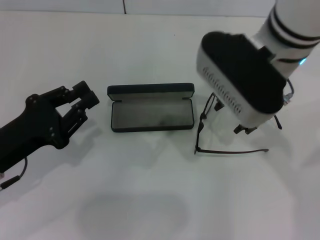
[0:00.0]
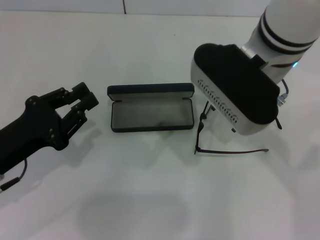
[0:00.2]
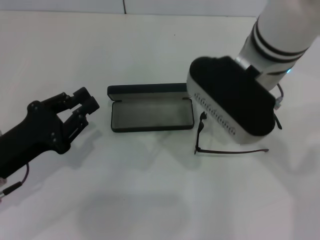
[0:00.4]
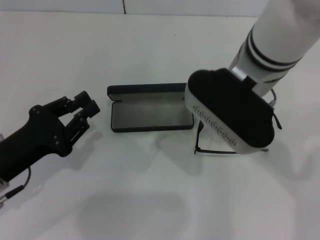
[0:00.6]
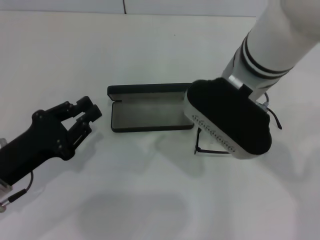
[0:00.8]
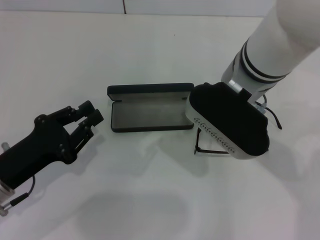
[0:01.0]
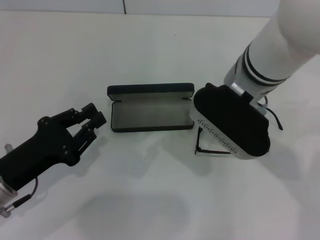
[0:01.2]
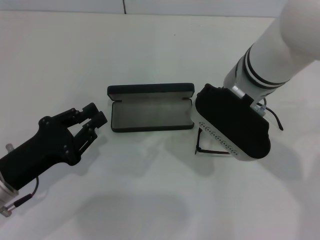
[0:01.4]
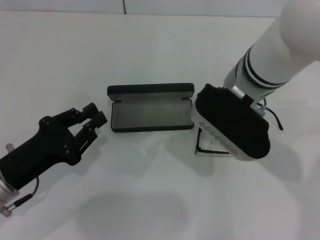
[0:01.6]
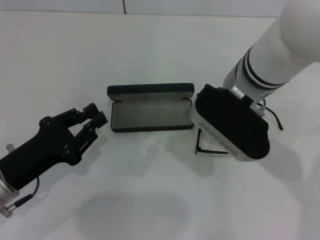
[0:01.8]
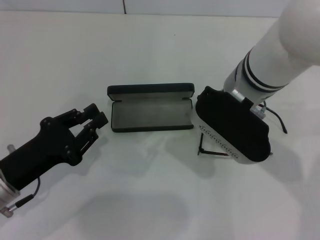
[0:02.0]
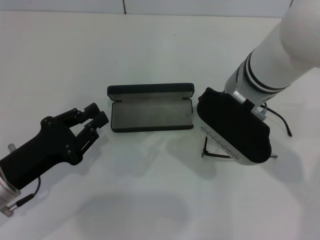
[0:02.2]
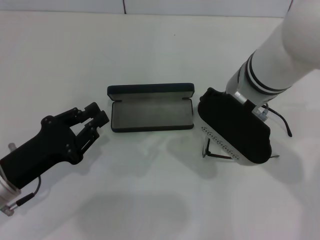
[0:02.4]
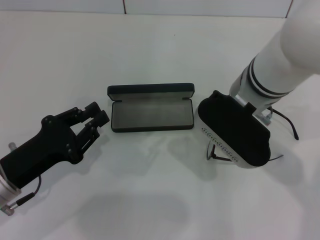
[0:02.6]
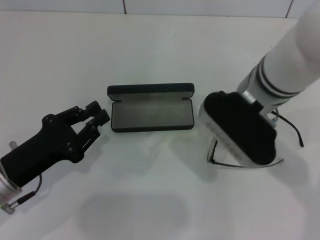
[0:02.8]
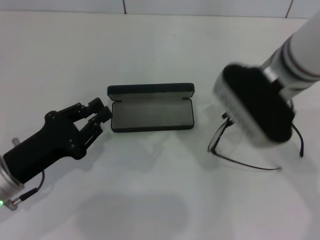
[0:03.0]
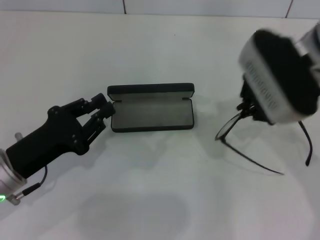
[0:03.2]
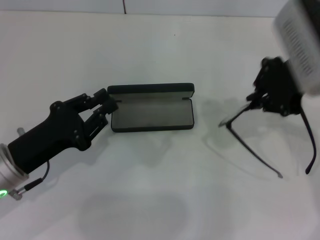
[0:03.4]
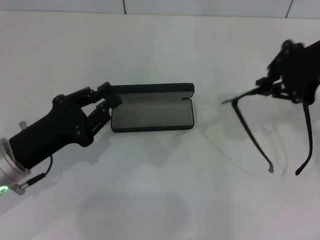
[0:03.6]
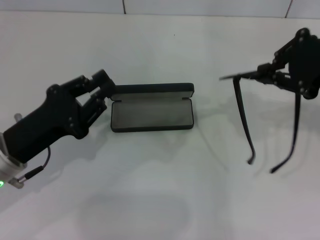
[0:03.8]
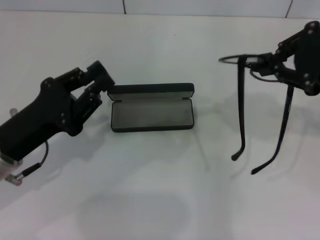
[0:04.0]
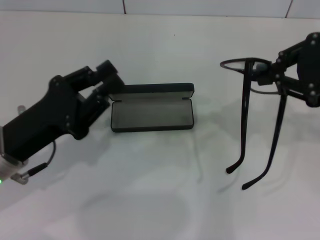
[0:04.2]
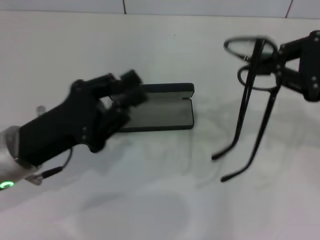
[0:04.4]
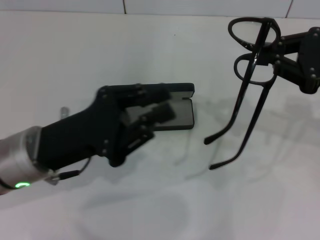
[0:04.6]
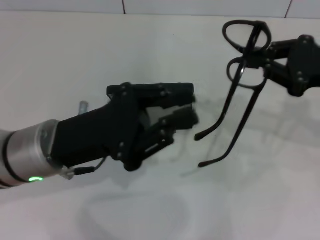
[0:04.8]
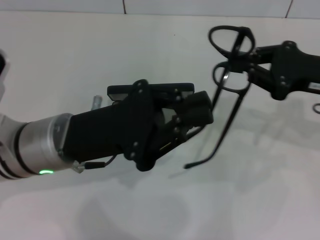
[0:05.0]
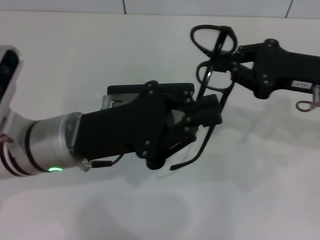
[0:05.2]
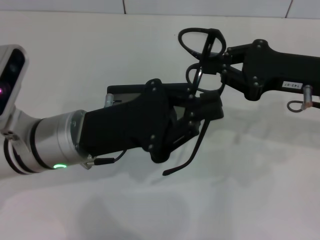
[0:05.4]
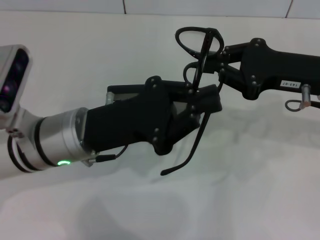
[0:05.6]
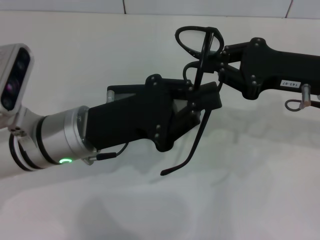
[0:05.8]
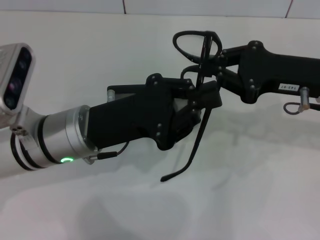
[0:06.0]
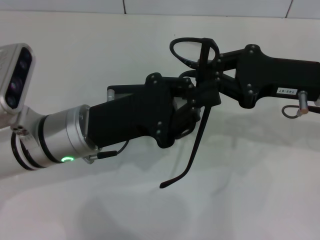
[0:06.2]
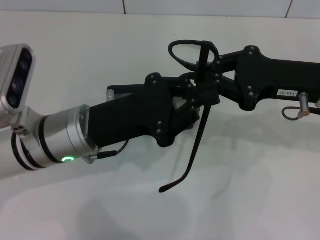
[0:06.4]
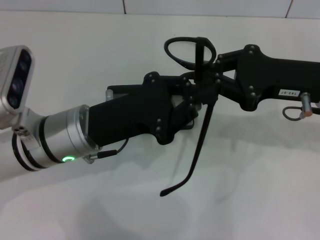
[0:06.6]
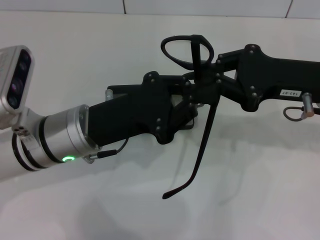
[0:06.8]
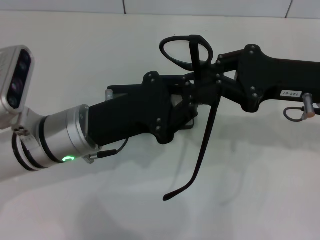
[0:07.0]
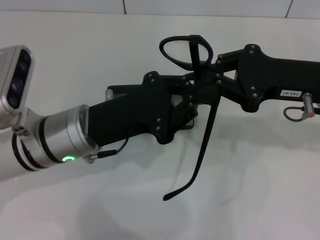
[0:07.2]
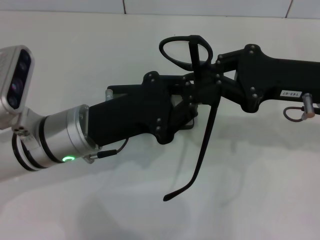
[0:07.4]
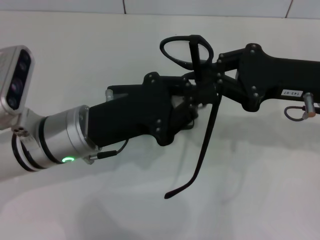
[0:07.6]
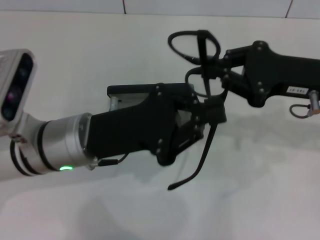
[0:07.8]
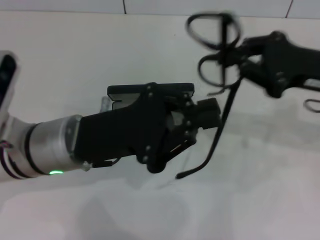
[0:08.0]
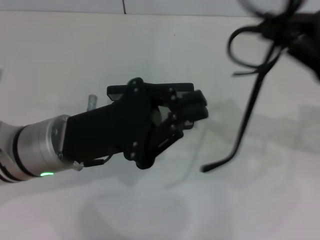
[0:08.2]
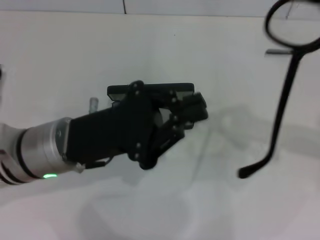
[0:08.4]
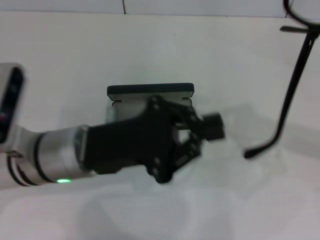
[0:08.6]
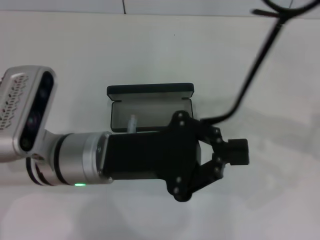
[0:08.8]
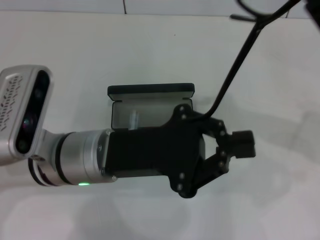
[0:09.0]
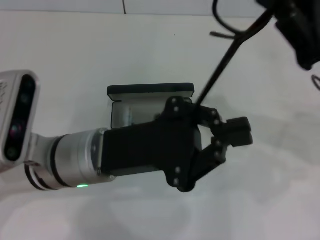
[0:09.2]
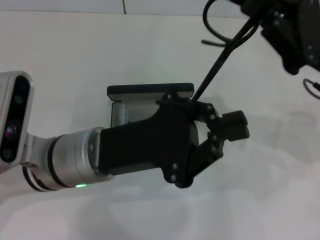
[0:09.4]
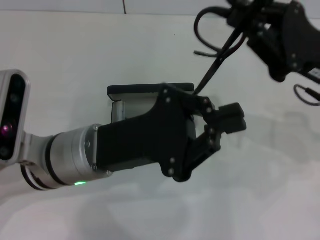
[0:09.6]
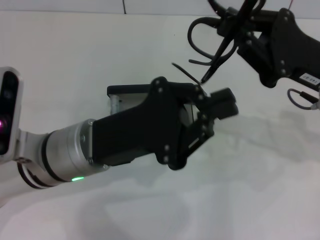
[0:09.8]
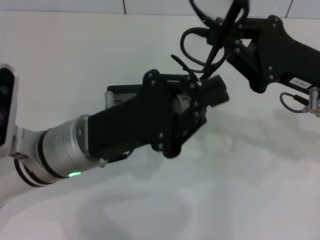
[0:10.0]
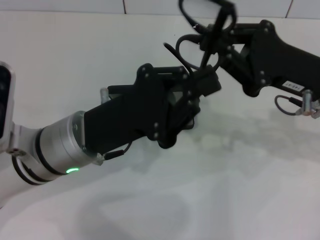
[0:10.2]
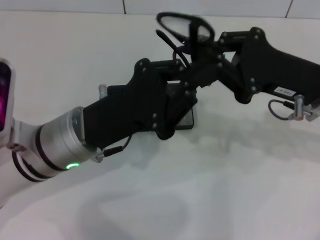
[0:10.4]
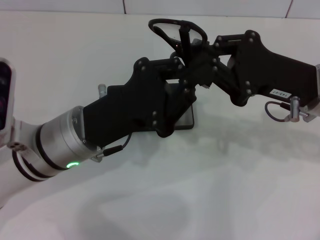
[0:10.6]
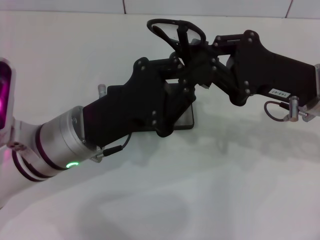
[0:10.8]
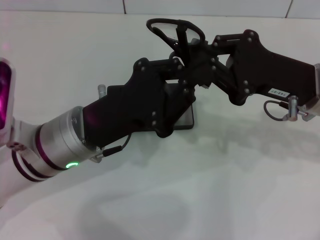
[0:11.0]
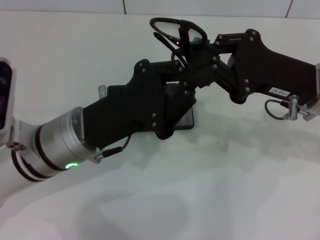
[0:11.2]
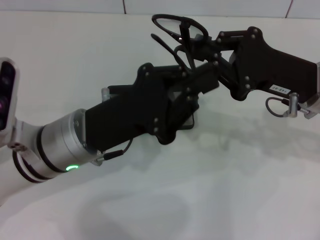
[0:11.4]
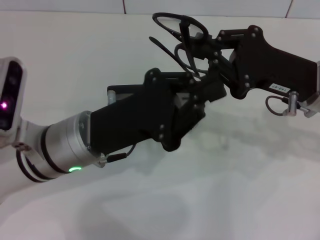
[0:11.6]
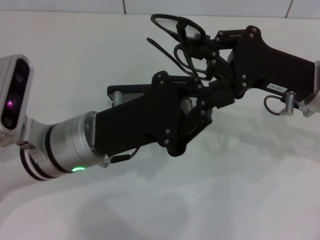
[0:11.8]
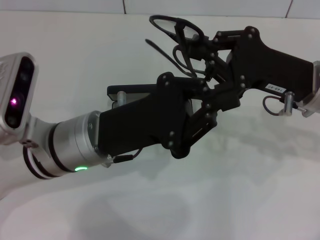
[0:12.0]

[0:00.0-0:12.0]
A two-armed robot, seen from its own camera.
Step, 0:00.0 to 0:02.6: Grab the eyeglass frame with your right hand.
0:00.0 to 0:01.6: The right gripper travels downward by approximately 5 cm.
0:01.6 to 0:03.0: The right gripper closes its fingers.
0:03.0 to 0:04.4: The right gripper moves to the right, about 15 cm; the left gripper ends up roughly 5 cm from where it was.
0:04.4 to 0:06.0: The left gripper goes some 5 cm to the right. Meanwhile the right gripper goes approximately 10 cm to the left and downward.
0:06.0 to 0:07.6: The grippers stay close to where they were, moving slightly.
0:09.0 to 0:10.4: The right gripper changes place by some 5 cm.

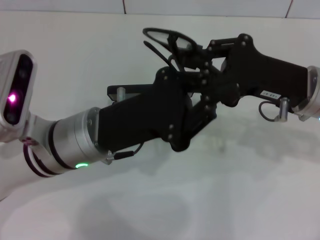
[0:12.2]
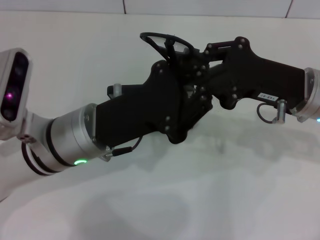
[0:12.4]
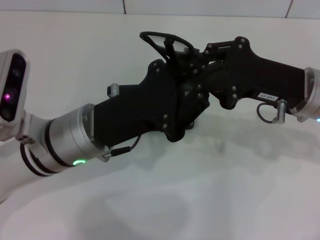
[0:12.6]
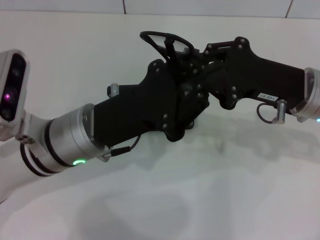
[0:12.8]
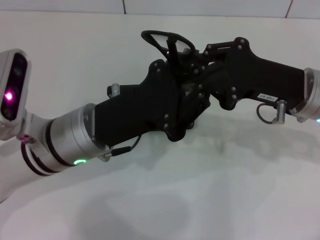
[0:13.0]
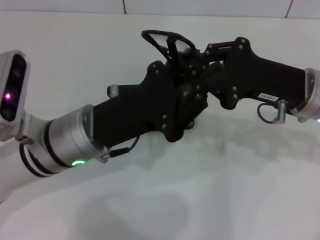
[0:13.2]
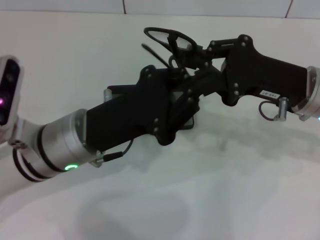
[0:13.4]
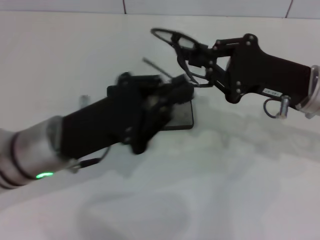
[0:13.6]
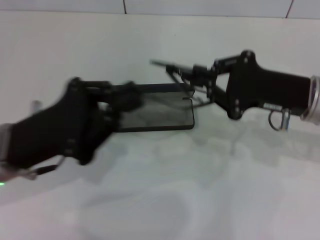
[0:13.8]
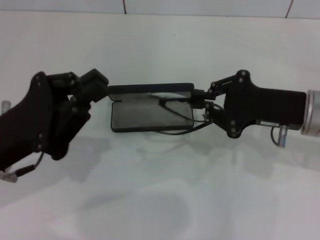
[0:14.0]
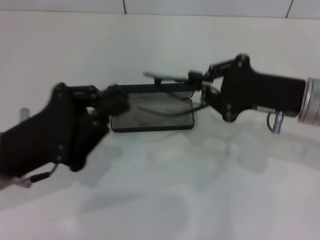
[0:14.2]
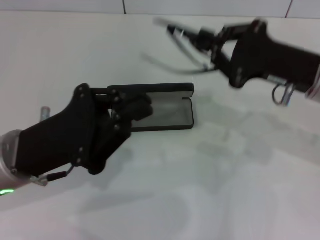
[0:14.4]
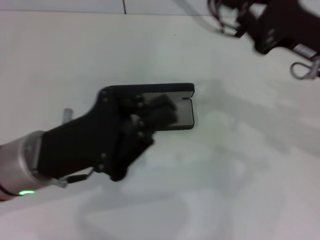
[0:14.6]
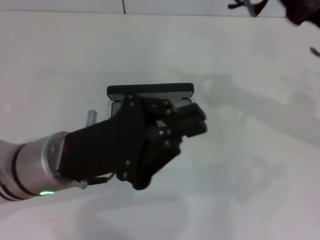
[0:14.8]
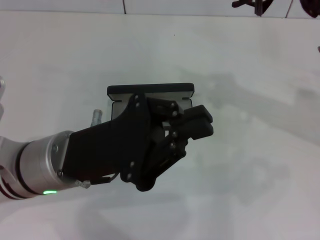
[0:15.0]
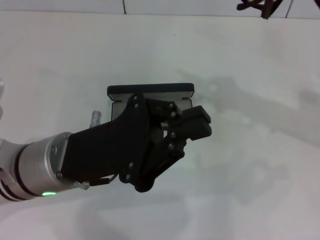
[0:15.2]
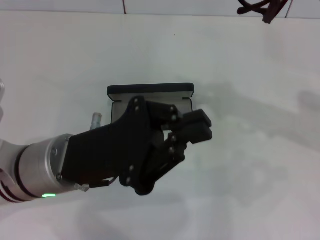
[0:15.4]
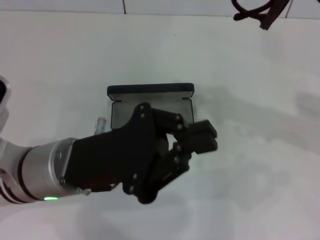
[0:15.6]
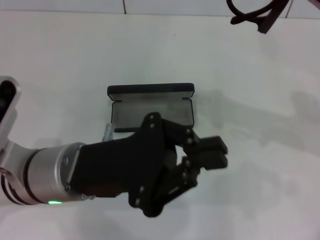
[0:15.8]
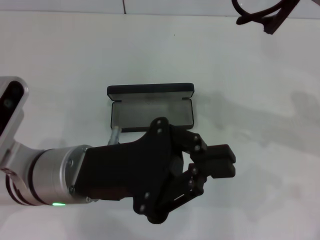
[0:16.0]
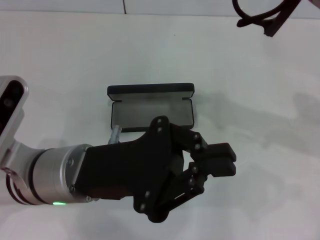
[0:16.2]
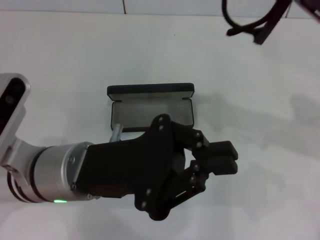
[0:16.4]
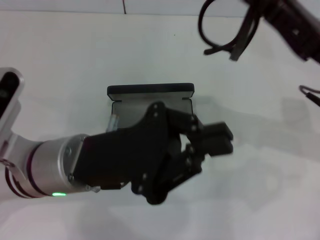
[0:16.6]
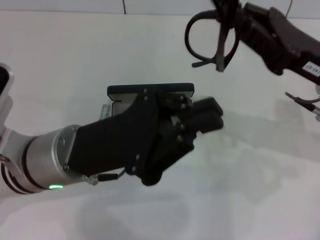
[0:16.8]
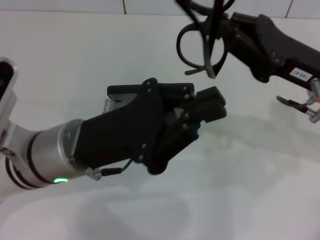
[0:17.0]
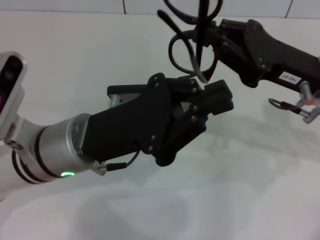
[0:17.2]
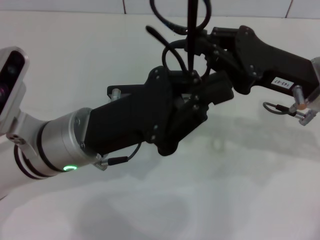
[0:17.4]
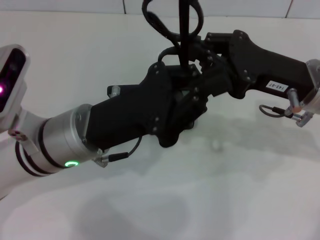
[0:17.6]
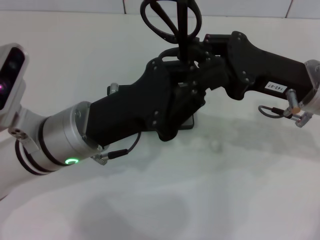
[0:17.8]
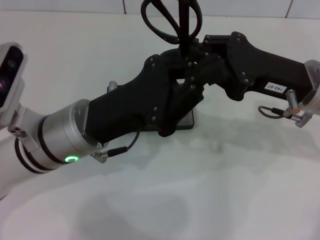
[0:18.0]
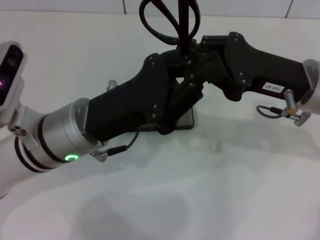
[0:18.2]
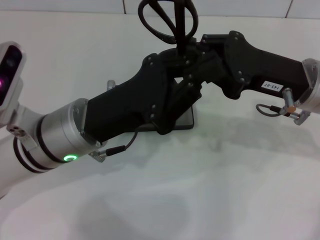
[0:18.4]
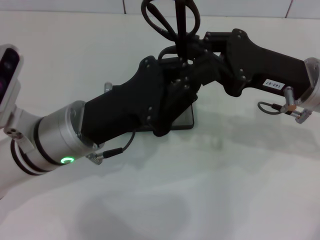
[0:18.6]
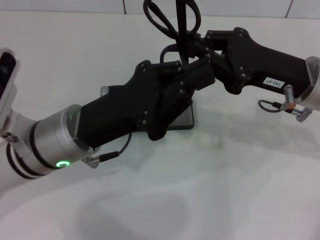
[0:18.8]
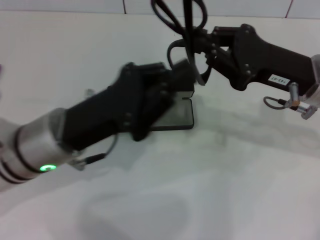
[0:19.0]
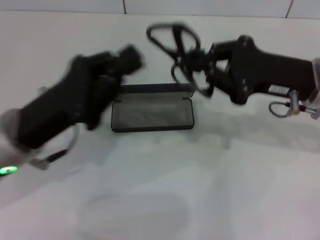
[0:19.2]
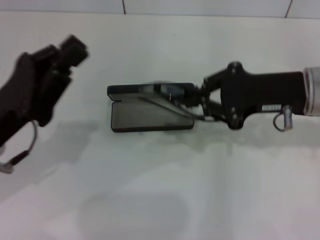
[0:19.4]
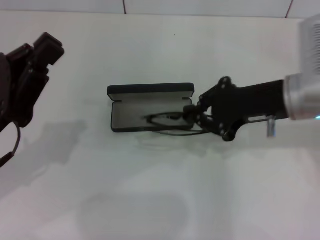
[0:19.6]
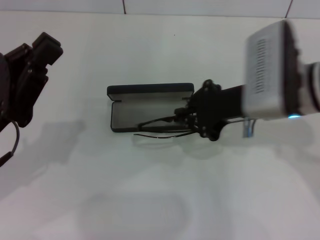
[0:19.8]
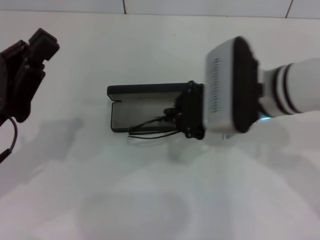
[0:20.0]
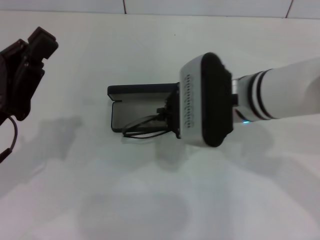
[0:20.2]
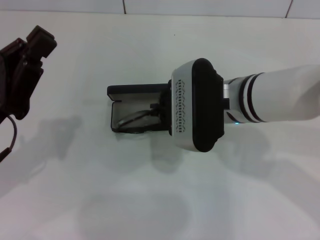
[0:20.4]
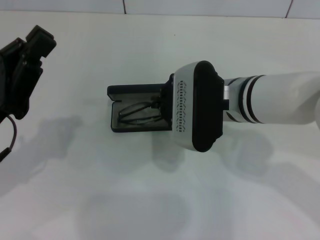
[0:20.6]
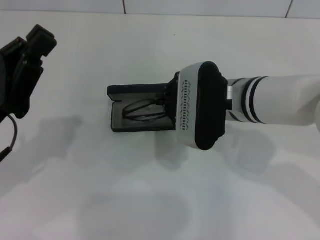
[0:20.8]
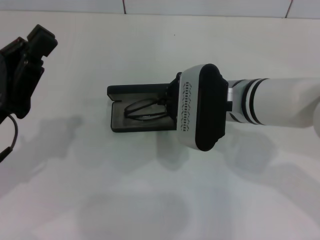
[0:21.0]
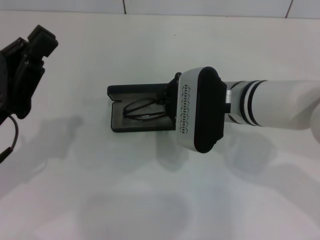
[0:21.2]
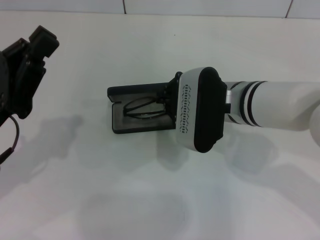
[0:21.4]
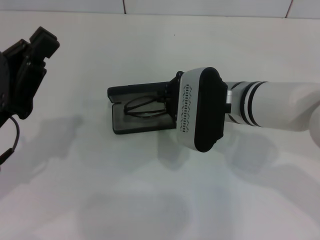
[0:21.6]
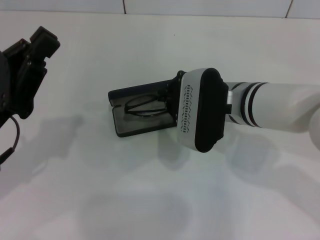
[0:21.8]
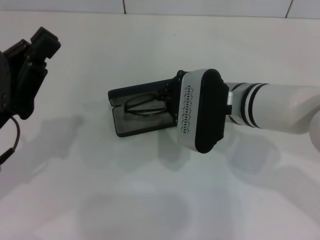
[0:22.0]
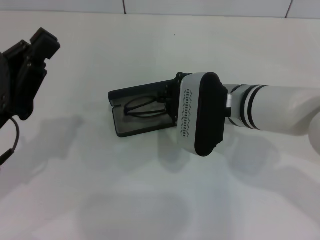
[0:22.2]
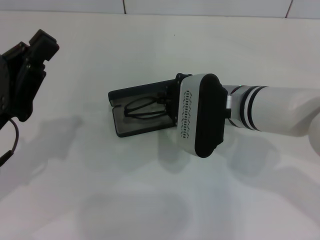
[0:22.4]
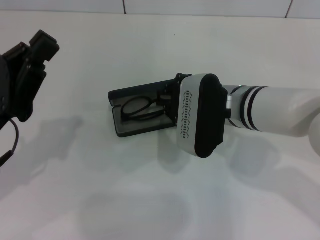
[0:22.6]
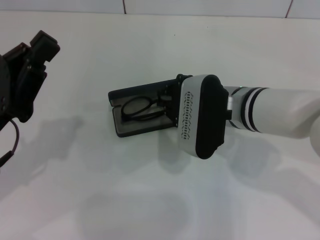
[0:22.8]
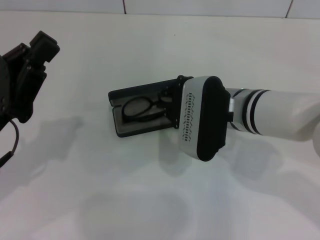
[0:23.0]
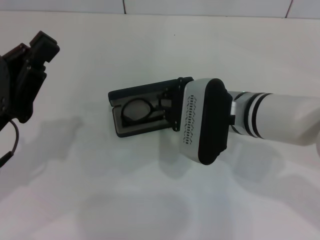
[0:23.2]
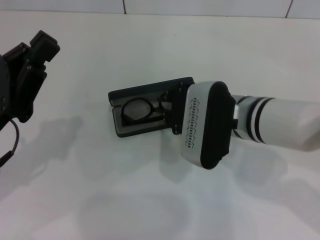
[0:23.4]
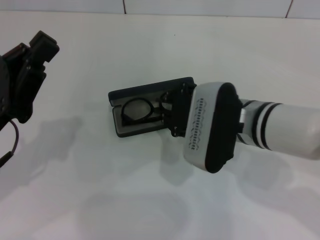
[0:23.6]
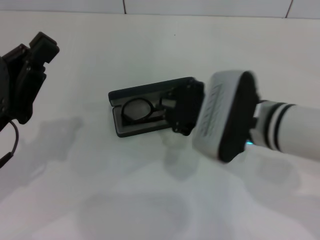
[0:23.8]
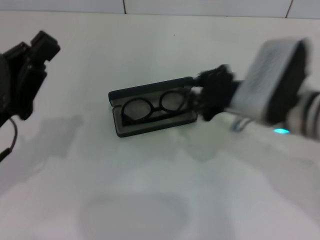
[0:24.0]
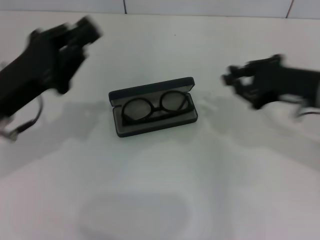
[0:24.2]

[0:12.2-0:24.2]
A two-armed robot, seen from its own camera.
Step, 0:12.2 to 0:18.4: Fold the frame with your left hand.
Step, 0:18.6 to 0:23.0: Put the glasses into the case with your right hand.
0:12.2 to 0:13.8: The left gripper heads to the left, covering about 10 cm.
0:13.8 to 0:15.2: The left gripper moves to the right, some 5 cm. The right gripper heads upward, covering some 5 cm.
0:15.2 to 0:16.6: The grippers make only small movements.
0:18.2 to 0:19.8: The left gripper shifts roughly 10 cm to the left.
0:19.8 to 0:21.2: The right gripper travels to the left by roughly 5 cm.
0:21.2 to 0:22.6: Both grippers stay about where they are.
0:22.6 to 0:24.2: The left gripper is displaced forward by roughly 5 cm; the right gripper goes roughly 15 cm to the right.
